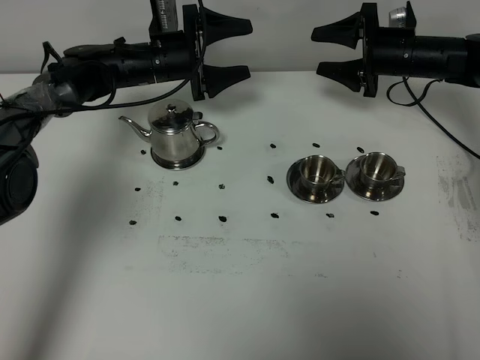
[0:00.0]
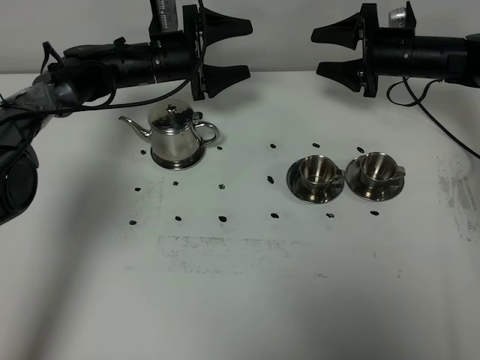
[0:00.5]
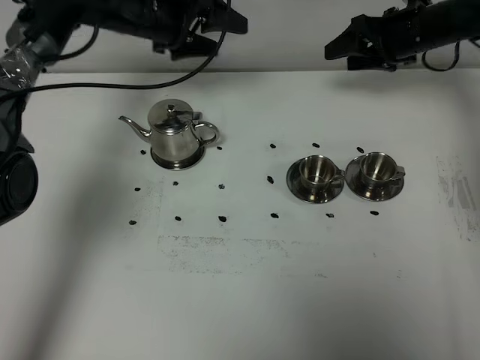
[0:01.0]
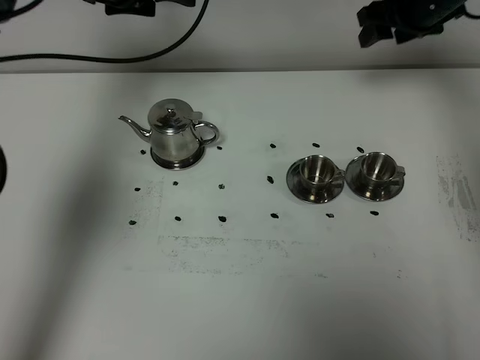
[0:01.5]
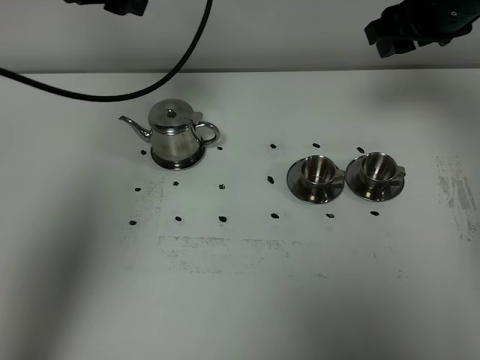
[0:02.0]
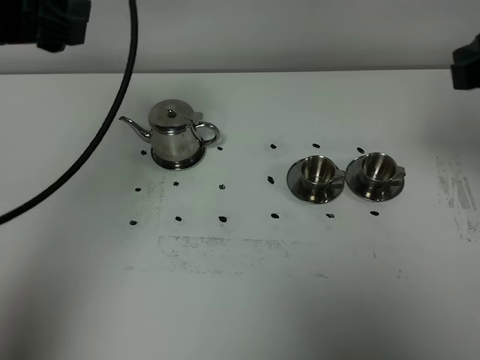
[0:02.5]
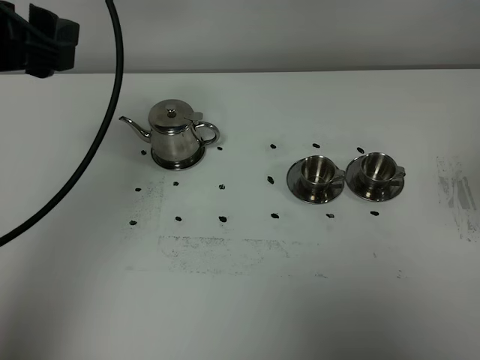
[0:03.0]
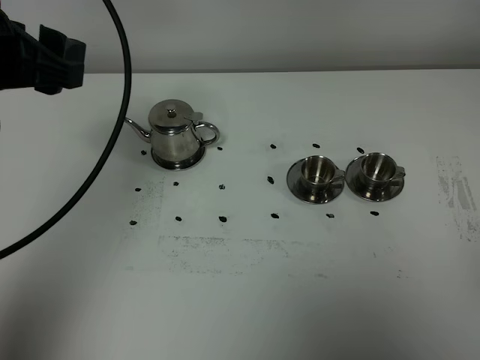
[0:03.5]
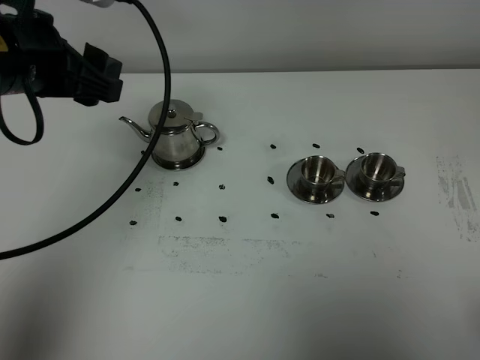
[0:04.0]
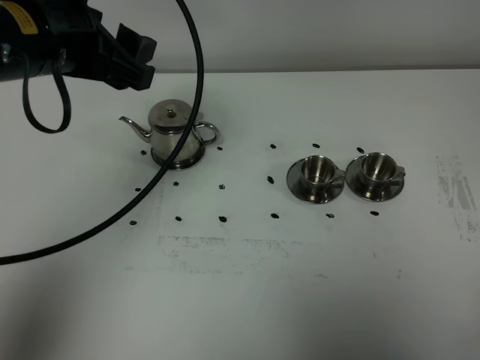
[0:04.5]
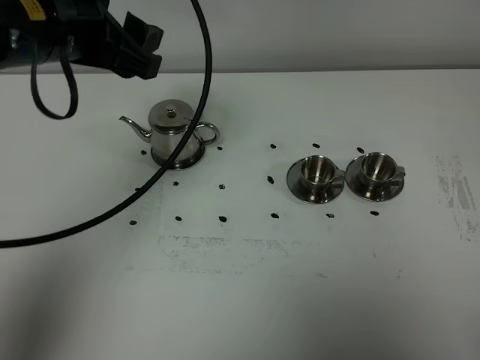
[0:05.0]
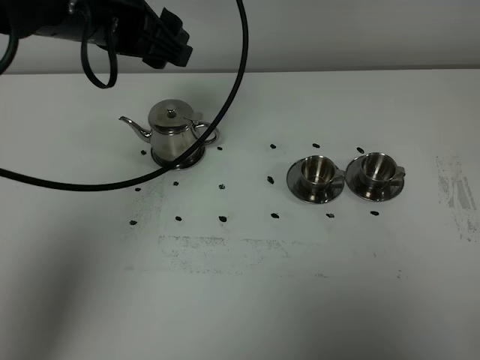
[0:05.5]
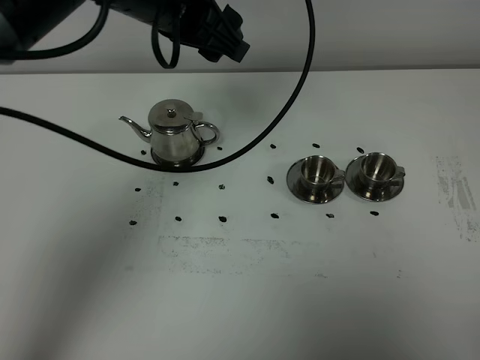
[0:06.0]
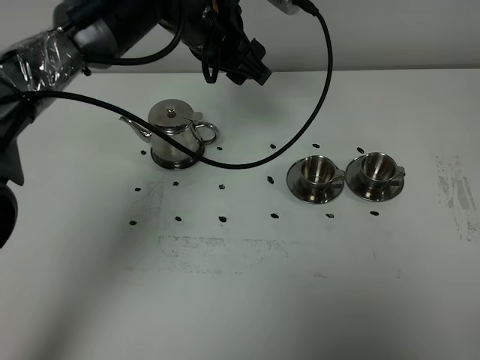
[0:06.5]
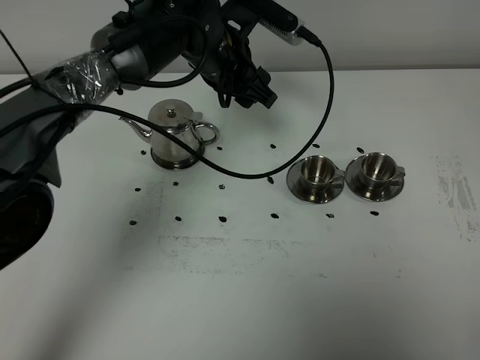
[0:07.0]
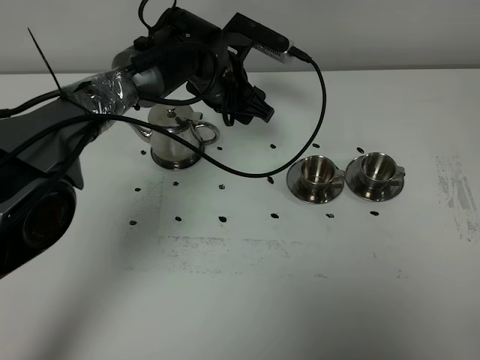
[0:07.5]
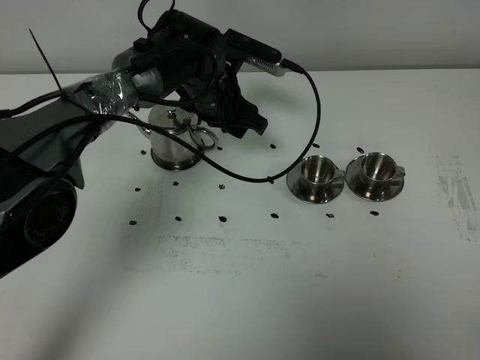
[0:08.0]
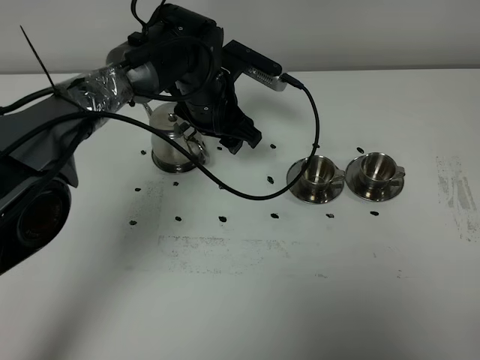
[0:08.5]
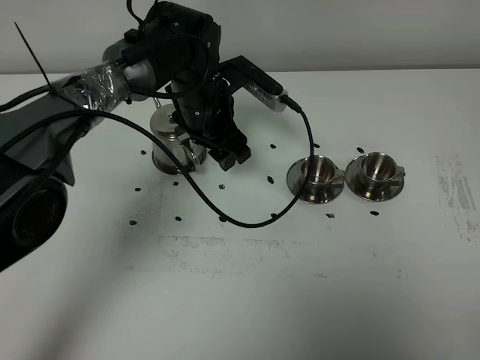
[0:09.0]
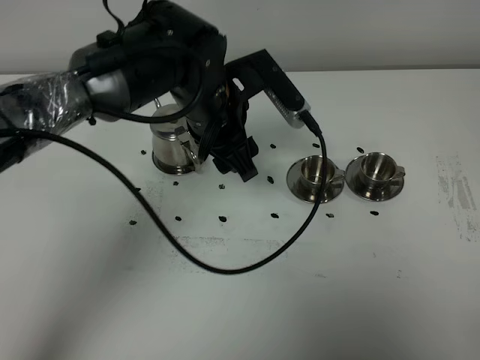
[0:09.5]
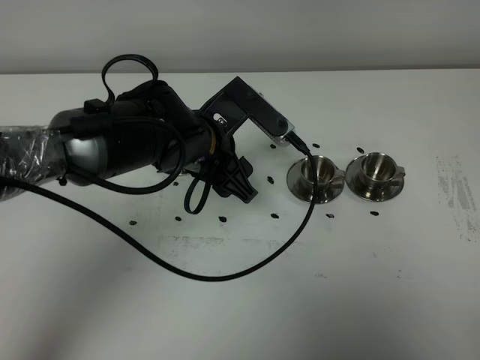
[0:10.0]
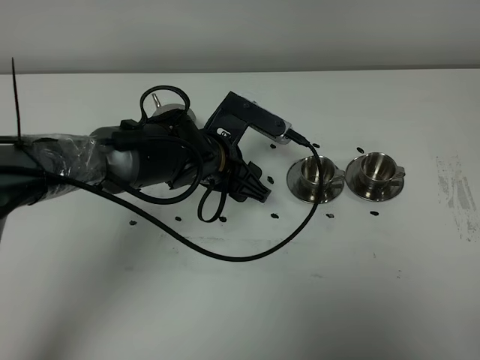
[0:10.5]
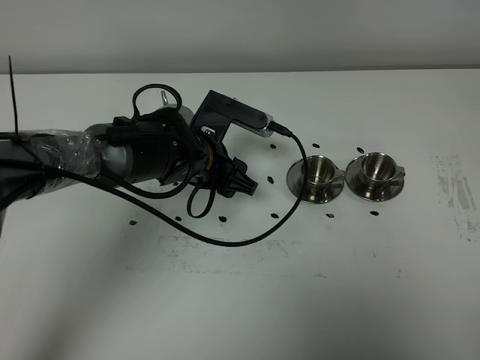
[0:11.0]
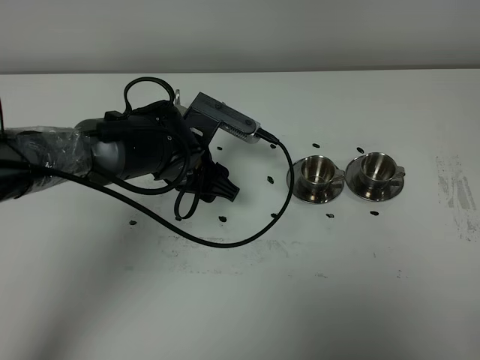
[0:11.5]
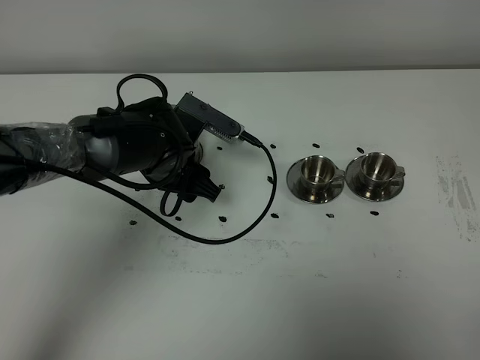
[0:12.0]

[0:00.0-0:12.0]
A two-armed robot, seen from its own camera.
Task of the whole recording: grasp the stainless steel teapot and pour the tea into the two stainless steel teacups one by one, put the stainless steel teapot back in its original place.
0:00.0 to 0:02.0: Both grippers move upward and backward, about 25 cm.
0:02.0 to 0:04.0: The right gripper travels backward by some 40 cm. Meanwhile the left gripper moves backward, some 10 cm.
0:04.0 to 0:06.0: The left gripper moves to the right and forward, about 15 cm. Meanwhile the right gripper closes.
0:06.0 to 0:08.0: The left gripper goes approximately 20 cm downward and forward.
0:08.0 to 0:10.0: The left gripper moves backward, some 15 cm.
0:10.0 to 0:12.0: The left gripper changes place by roughly 5 cm.

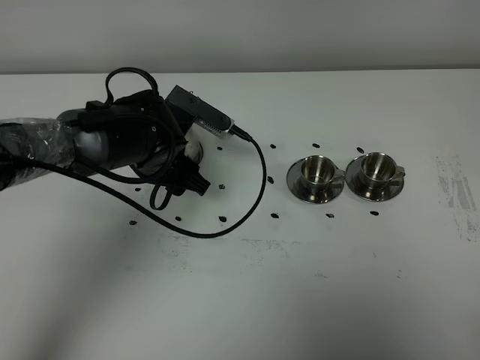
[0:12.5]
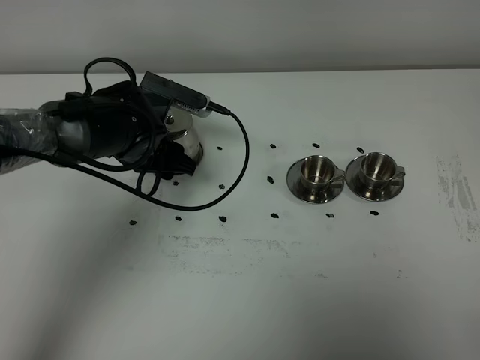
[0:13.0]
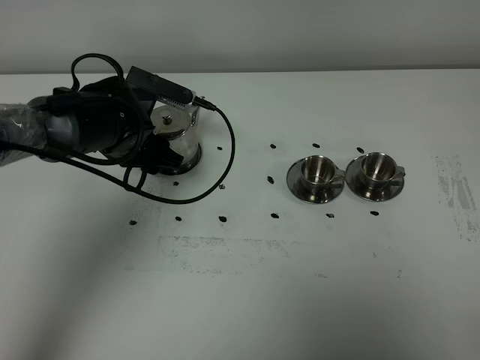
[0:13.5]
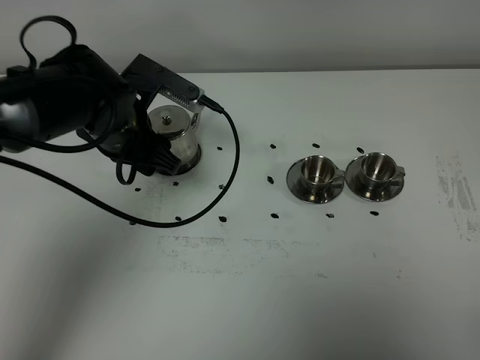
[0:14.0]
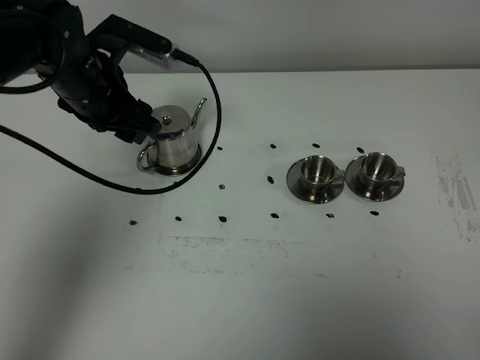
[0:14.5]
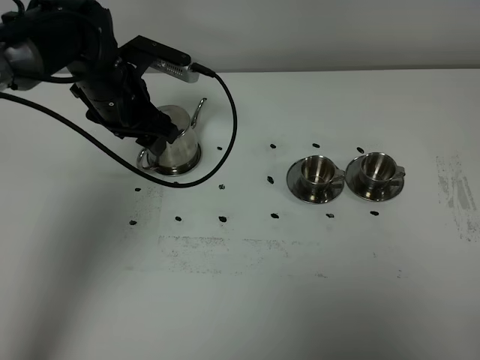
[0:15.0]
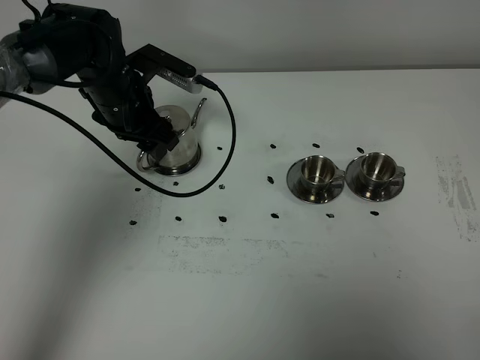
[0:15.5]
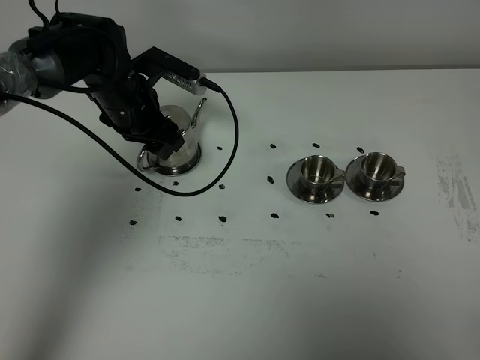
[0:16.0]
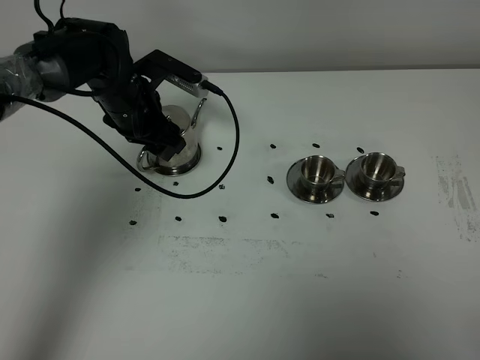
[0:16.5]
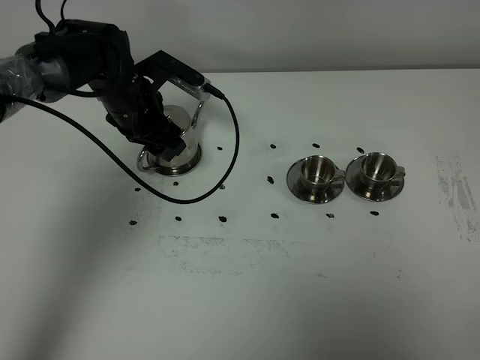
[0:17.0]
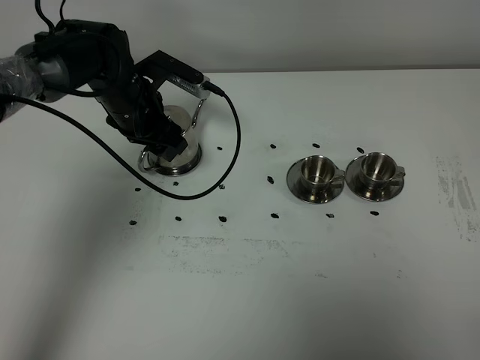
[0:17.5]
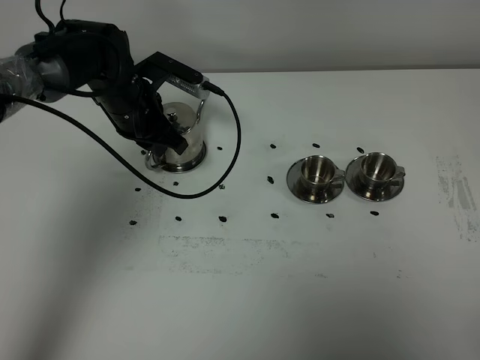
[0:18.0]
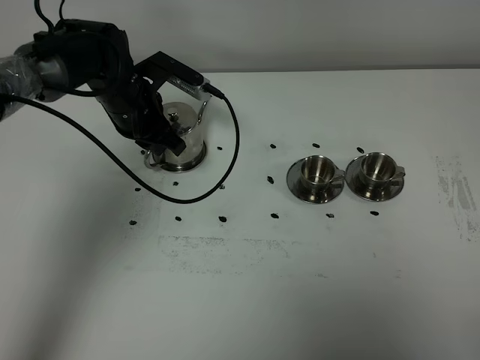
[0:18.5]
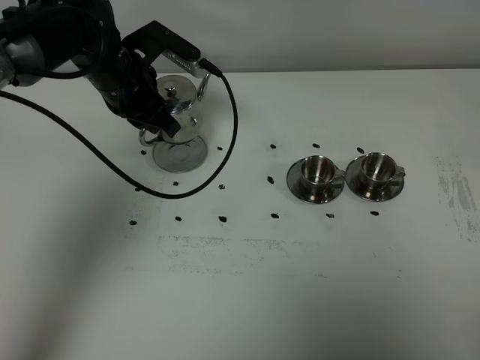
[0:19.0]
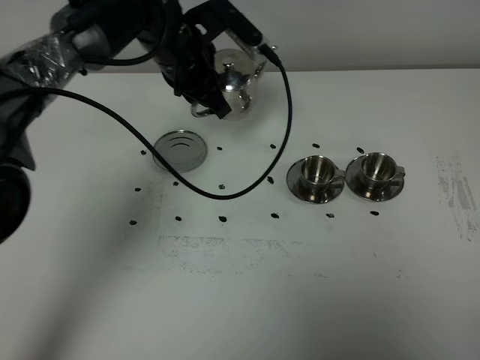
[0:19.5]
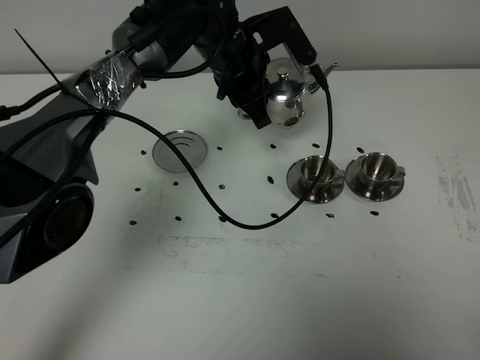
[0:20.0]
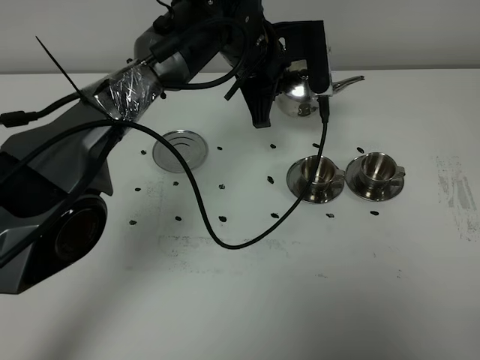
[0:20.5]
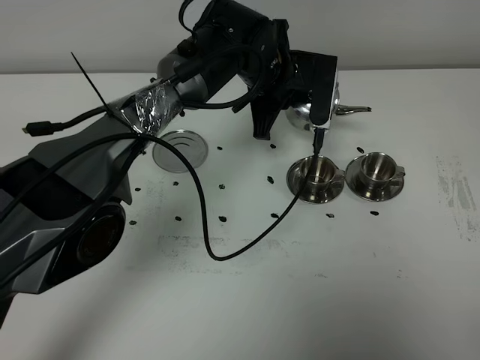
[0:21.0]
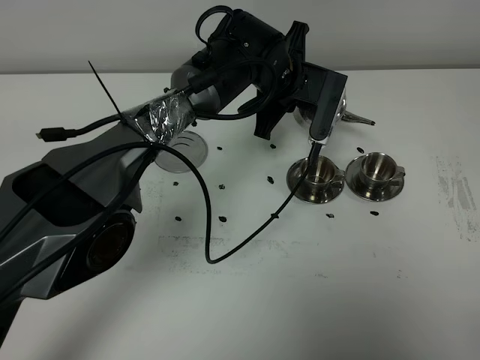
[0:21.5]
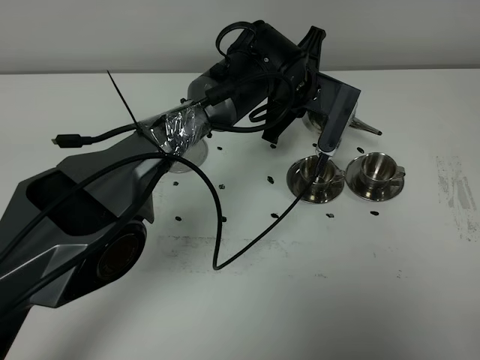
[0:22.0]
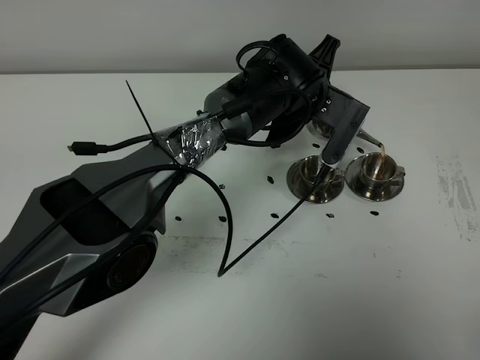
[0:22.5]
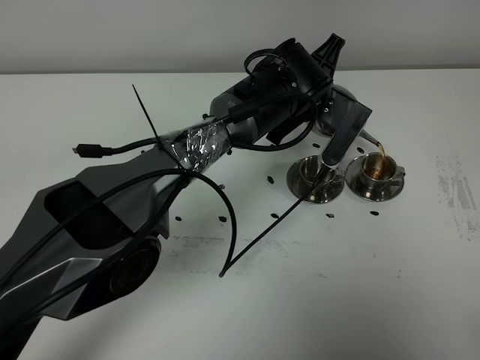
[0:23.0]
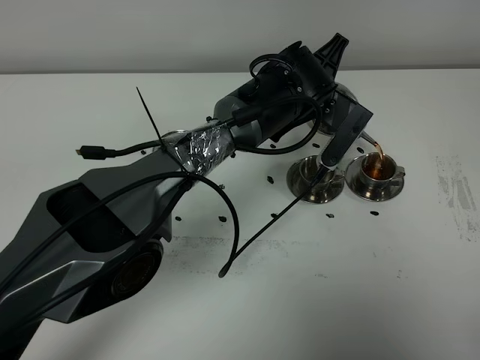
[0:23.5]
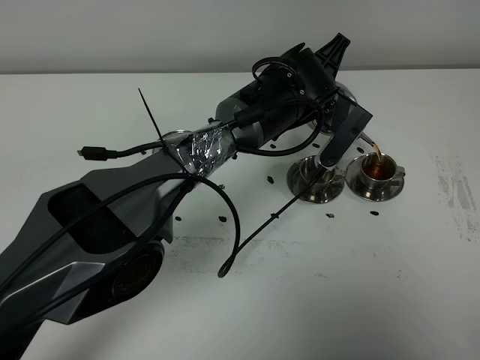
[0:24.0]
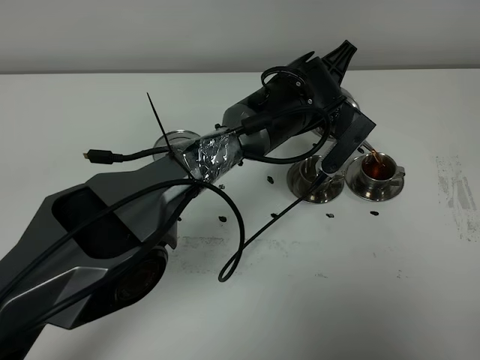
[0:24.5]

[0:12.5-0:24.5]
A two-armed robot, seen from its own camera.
Task of the whole recording: grasp the stainless steel teapot and pour the tea into the two stainless steel teacups one by one, put the stainless steel teapot back in its original place.
Step, 0:12.5 to 0:18.5: Pick up the teapot with the left gripper.
0:12.5 to 0:14.5: The left gripper shifts some 10 cm upward and to the left.
0:14.5 to 0:16.5: The left gripper travels downward and forward by about 10 cm.
0:16.5 to 0:18.5: The left gripper closes its fingers.
0:18.5 to 0:20.5: The left gripper is displaced to the right and upward by approximately 20 cm.
0:20.5 to 0:22.5: The left gripper travels to the right and downward by about 10 cm.
0:22.5 to 0:24.5: The grippers stay close to where they were, moving slightly.

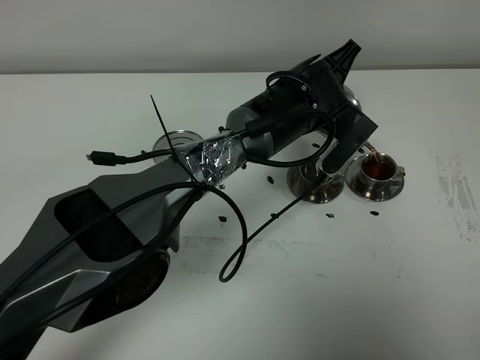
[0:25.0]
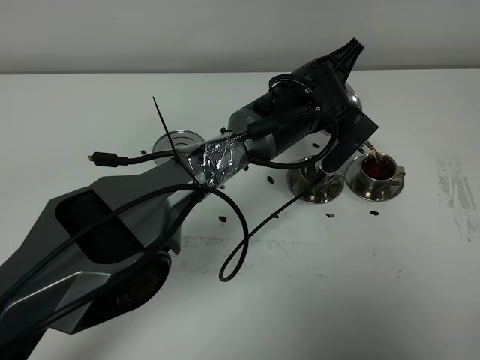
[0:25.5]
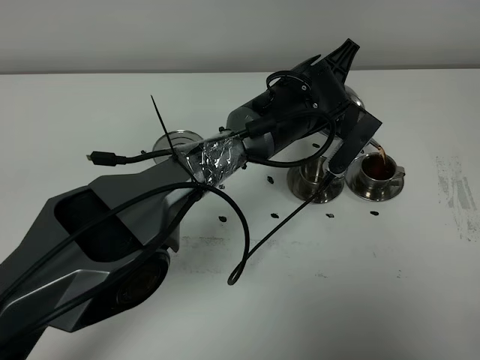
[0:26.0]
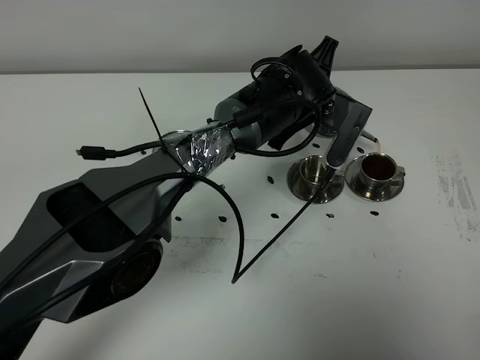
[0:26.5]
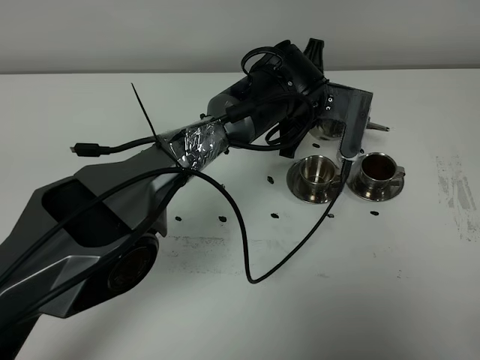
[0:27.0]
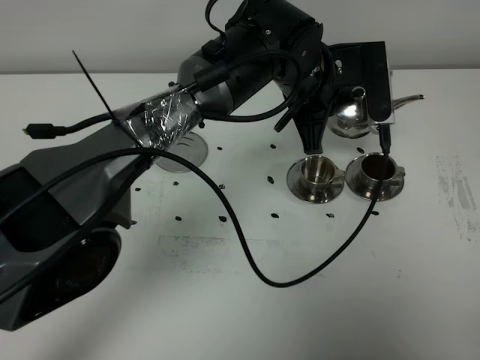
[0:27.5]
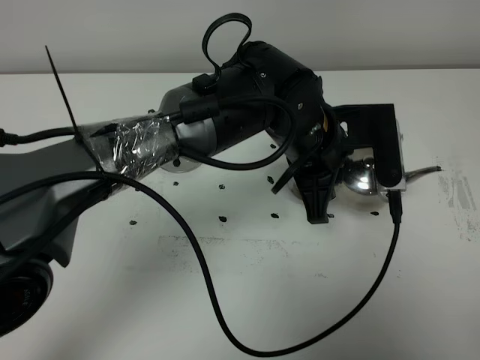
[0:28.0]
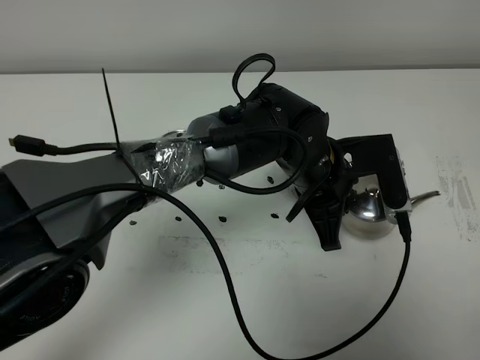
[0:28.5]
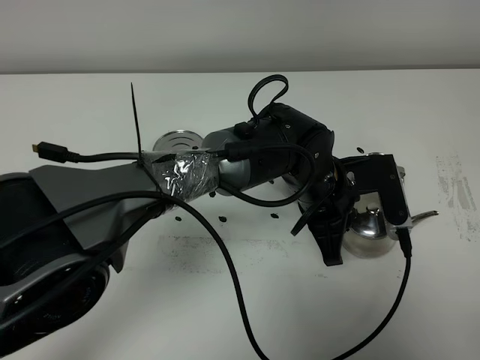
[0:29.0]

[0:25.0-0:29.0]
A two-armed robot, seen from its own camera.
Task of the whole recording: grasp the stainless steel teapot and pour the tea into the two stainless steel teacups one by one, put the stainless steel teapot back in its original place.
0:27.0 to 0:29.0: The left gripper is displaced backward by some 10 cm.
